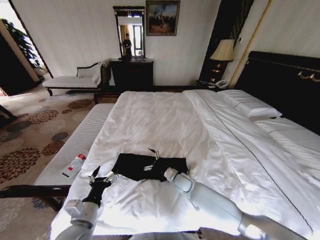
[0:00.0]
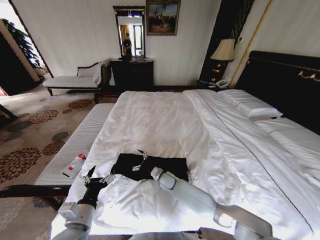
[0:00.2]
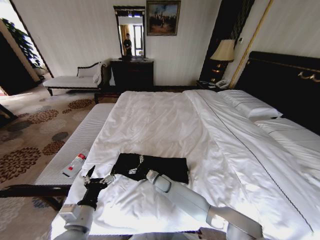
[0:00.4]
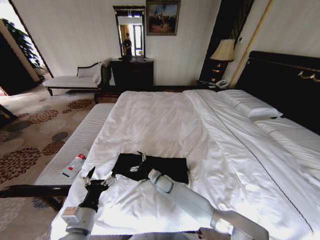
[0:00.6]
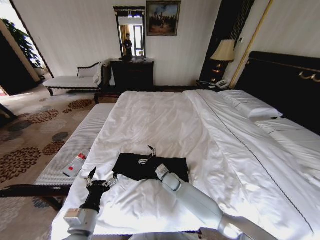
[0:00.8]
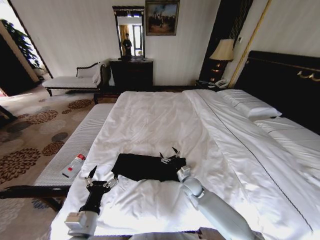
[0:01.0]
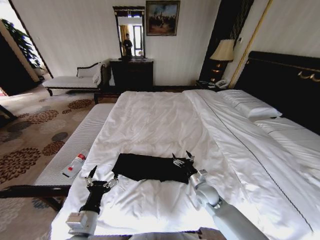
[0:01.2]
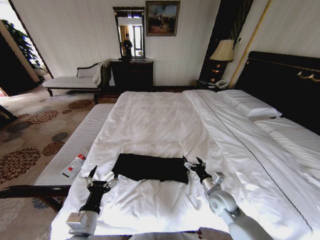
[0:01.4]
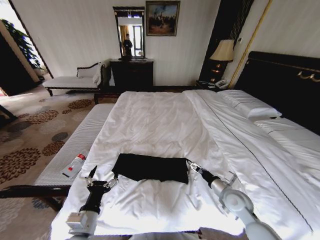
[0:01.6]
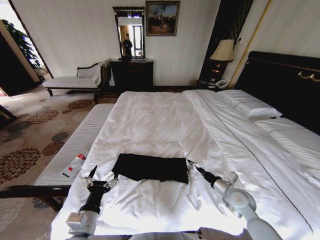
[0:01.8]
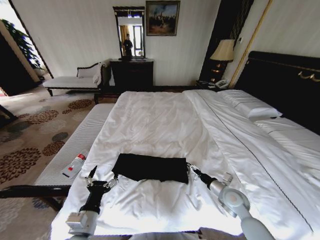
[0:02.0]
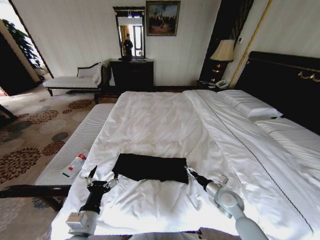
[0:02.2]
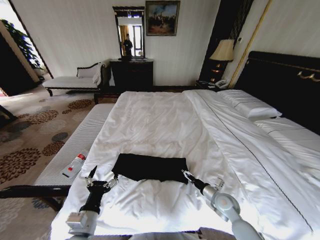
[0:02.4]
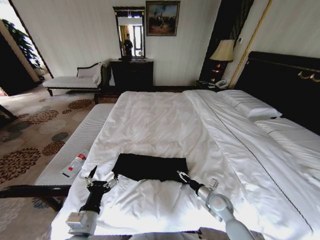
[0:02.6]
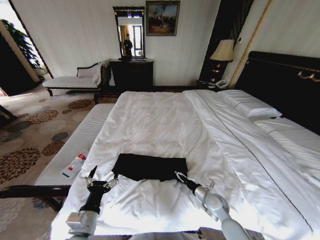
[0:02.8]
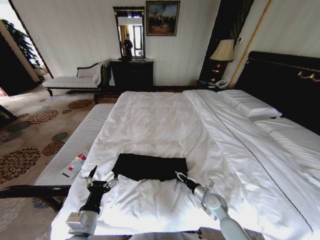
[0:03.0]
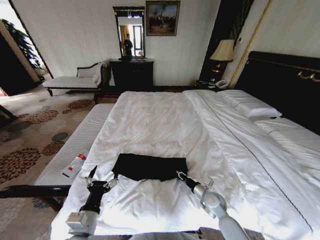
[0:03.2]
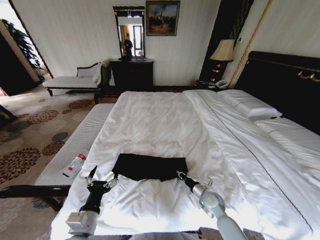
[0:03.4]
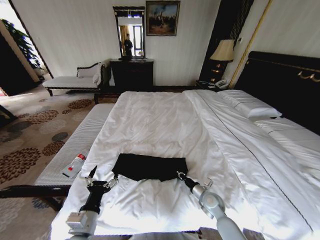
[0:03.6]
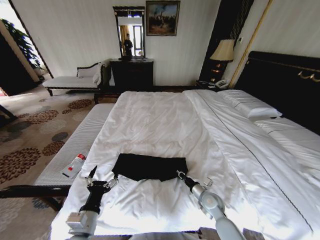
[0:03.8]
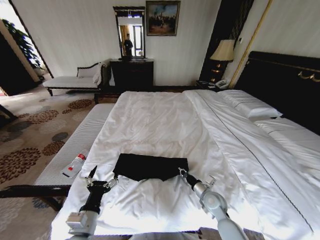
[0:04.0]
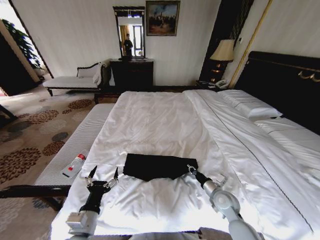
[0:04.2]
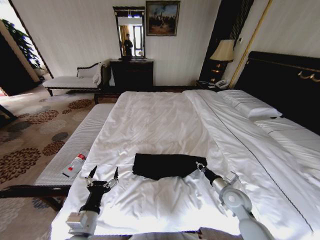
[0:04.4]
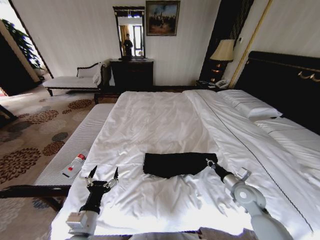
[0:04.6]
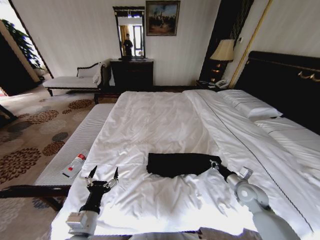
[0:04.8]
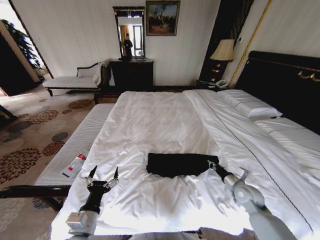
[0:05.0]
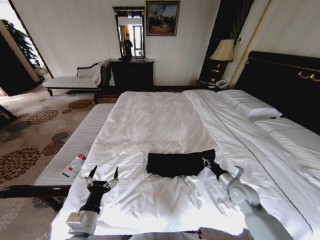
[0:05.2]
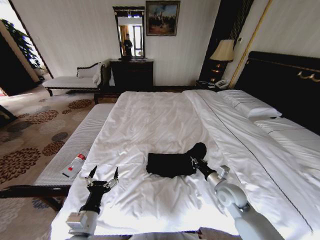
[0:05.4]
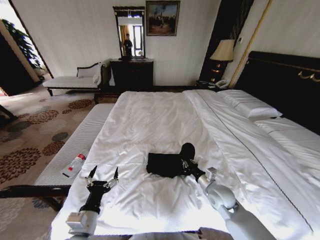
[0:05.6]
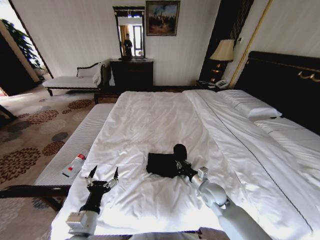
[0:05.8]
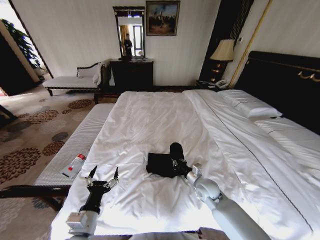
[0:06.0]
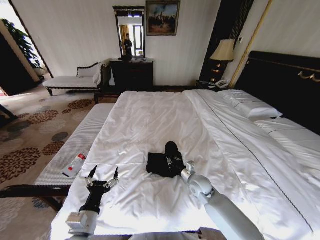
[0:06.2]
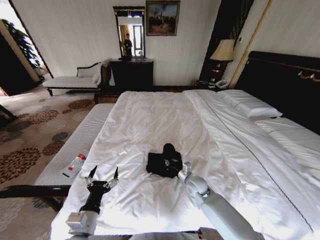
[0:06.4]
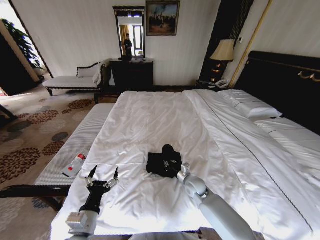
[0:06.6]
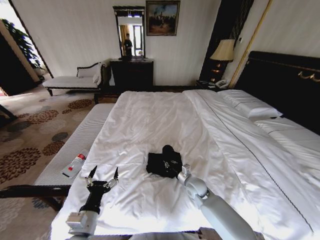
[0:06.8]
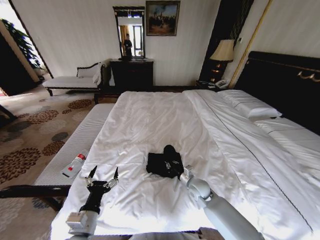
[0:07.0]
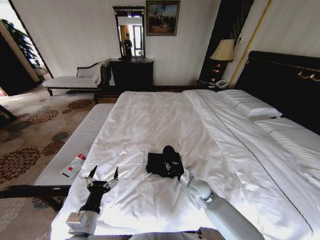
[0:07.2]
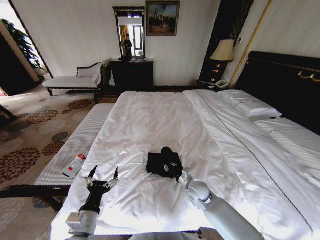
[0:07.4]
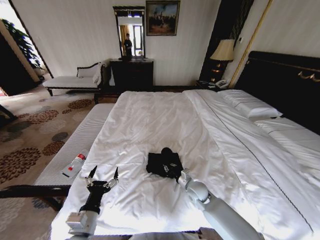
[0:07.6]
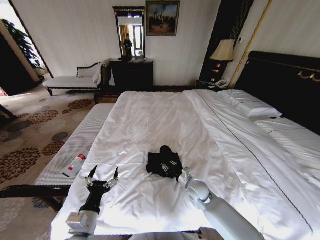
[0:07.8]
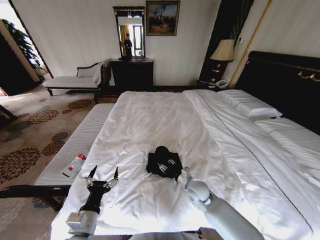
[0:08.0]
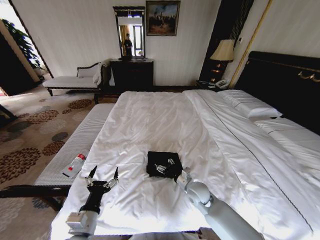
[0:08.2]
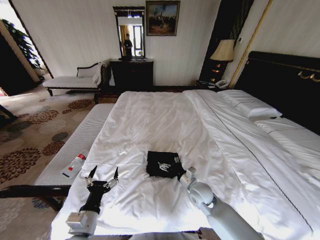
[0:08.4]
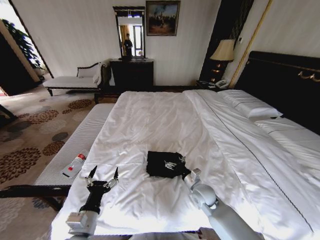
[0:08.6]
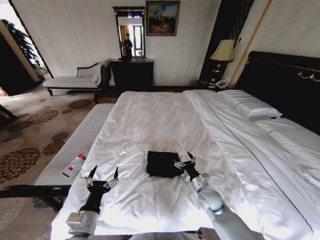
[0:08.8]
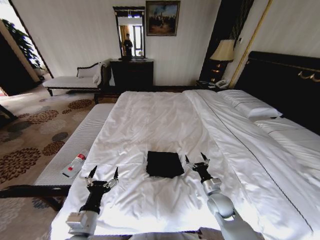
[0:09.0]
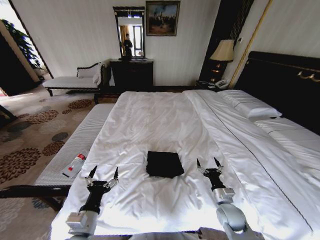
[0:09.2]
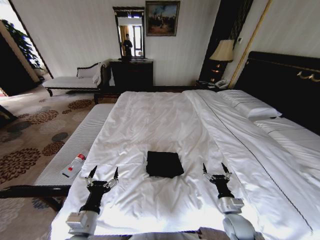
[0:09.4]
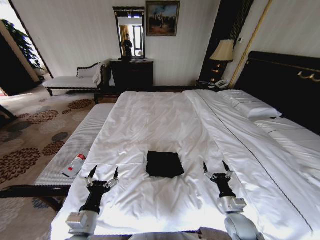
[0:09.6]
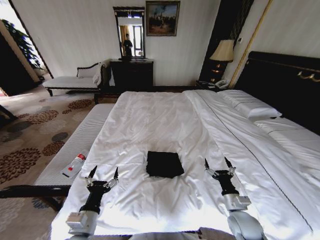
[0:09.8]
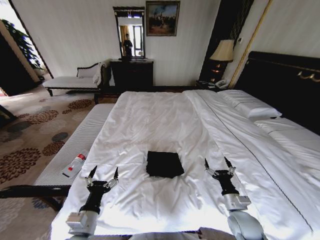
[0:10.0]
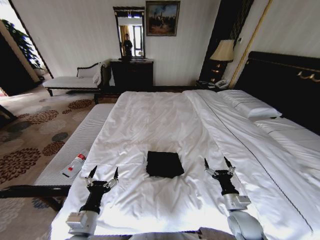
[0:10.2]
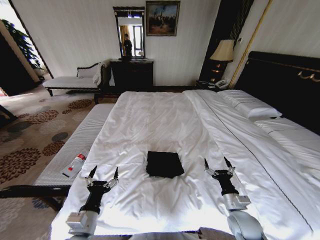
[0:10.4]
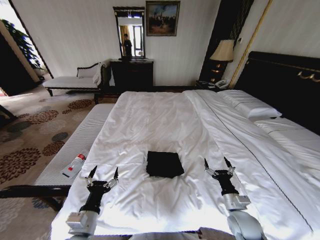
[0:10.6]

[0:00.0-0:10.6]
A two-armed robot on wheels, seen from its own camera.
Task of the whole recording: Fold the clothes on the bed.
0:00.0 to 0:01.6: The right gripper shifts about 25 cm to the right, backward and upward.
0:01.6 to 0:03.0: The right gripper shifts roughly 10 cm downward, and closes up.
0:03.0 to 0:04.6: The right gripper heads to the right and upward, covering approximately 15 cm, and closes up.
0:04.6 to 0:06.0: The right gripper shifts roughly 15 cm to the left.
0:06.0 to 0:07.6: The right gripper shifts by approximately 5 cm.
0:07.6 to 0:09.0: The right gripper travels to the right and backward by approximately 10 cm, and opens.
0:09.0 to 0:10.6: The right gripper moves backward, about 5 cm.

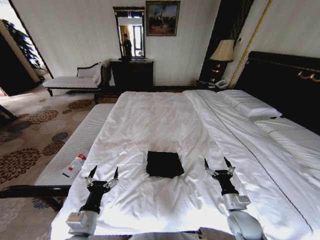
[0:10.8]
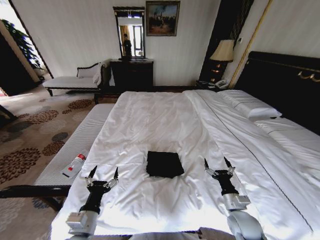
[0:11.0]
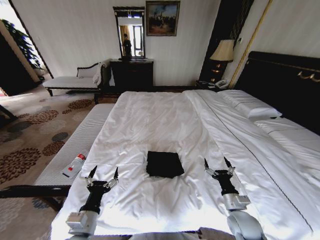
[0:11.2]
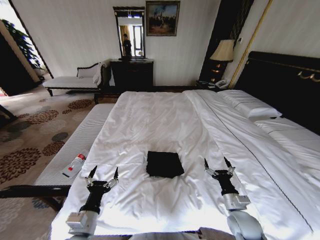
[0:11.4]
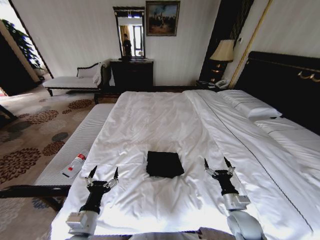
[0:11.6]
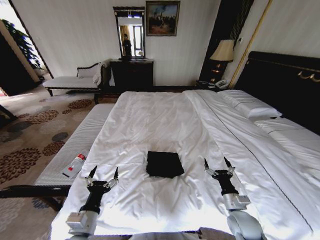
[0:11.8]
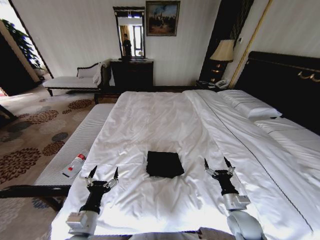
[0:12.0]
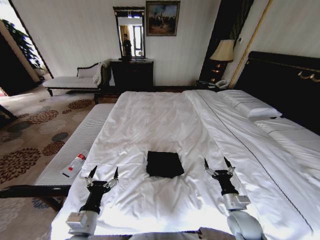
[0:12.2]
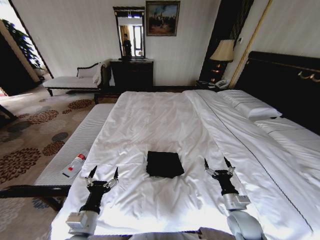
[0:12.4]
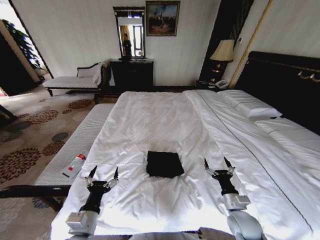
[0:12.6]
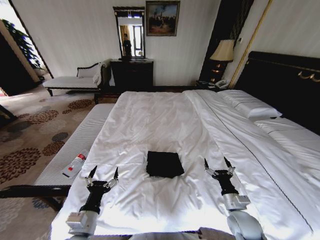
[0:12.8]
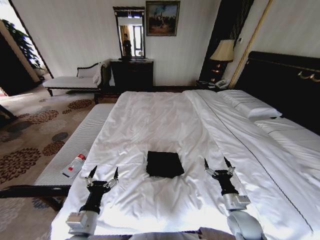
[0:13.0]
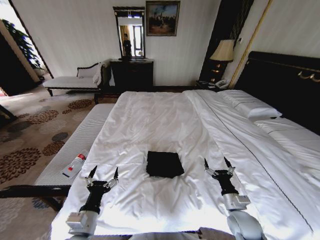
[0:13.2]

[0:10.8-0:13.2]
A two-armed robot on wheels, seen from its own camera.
Task of the whole recording: Fold the clothes on the bed.
0:10.8 to 0:13.2: The two grippers keep their place.
